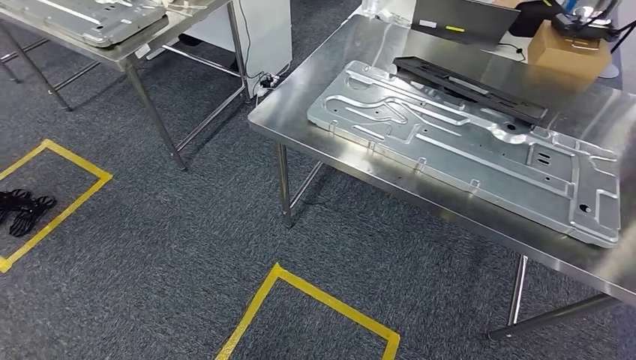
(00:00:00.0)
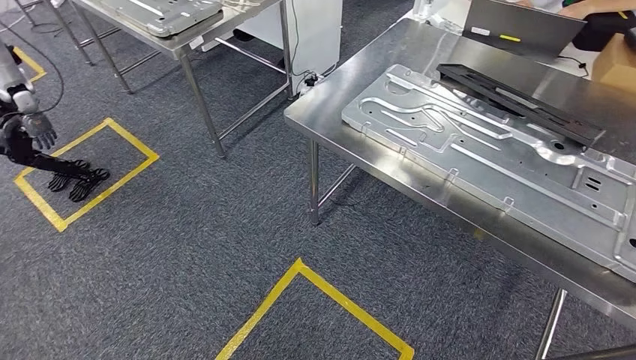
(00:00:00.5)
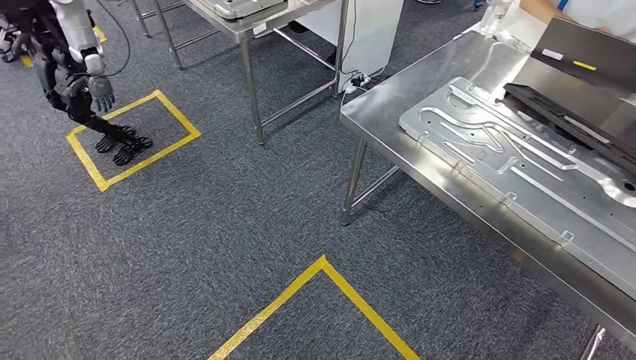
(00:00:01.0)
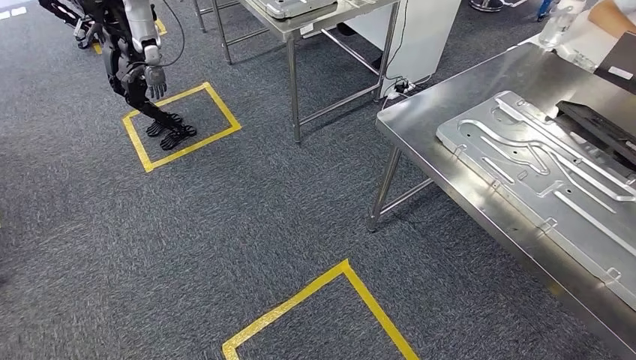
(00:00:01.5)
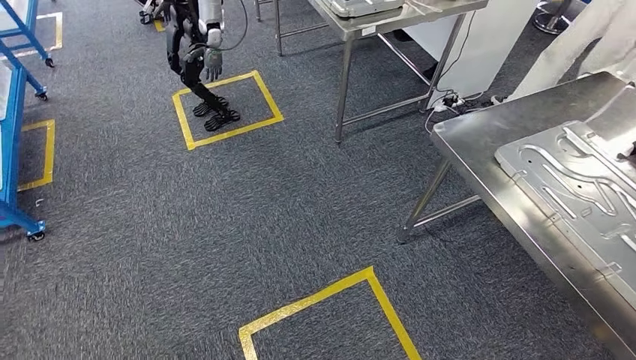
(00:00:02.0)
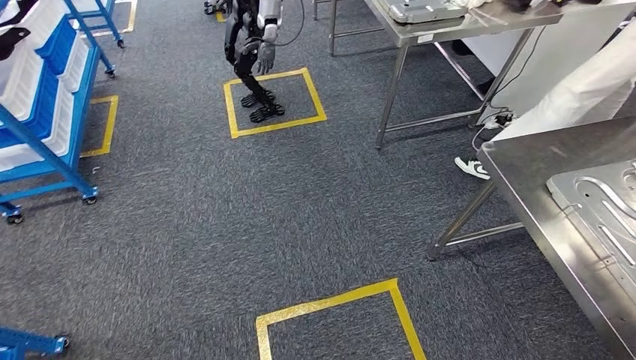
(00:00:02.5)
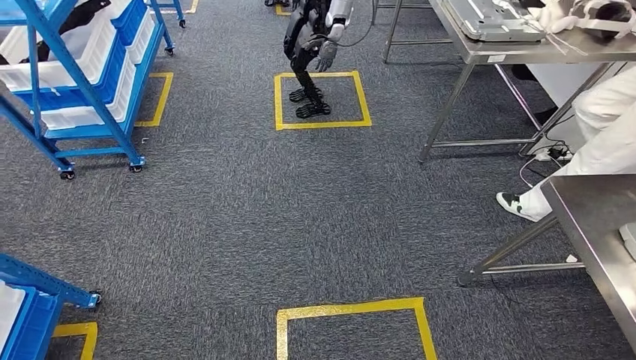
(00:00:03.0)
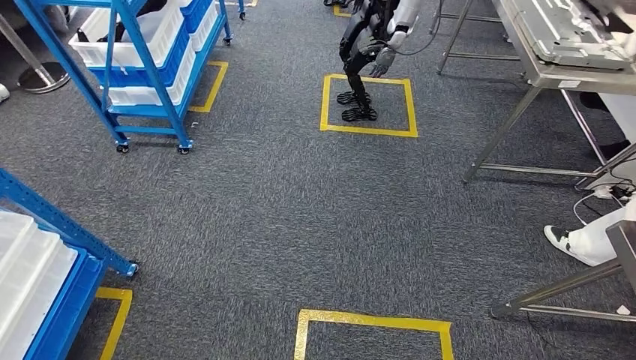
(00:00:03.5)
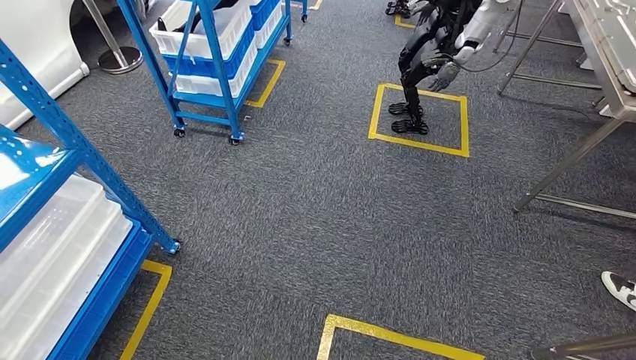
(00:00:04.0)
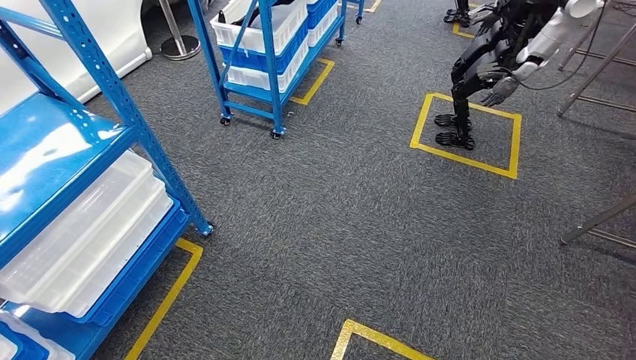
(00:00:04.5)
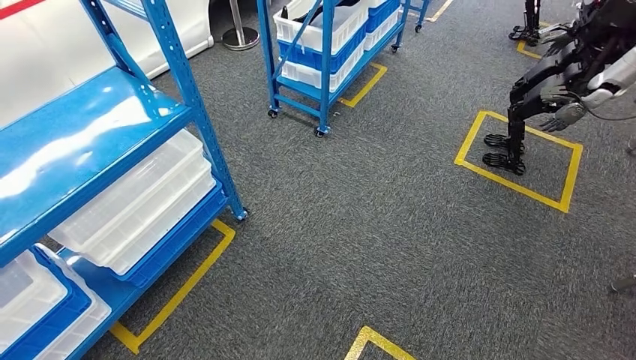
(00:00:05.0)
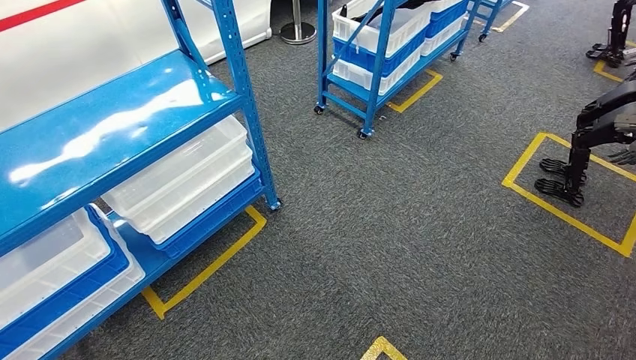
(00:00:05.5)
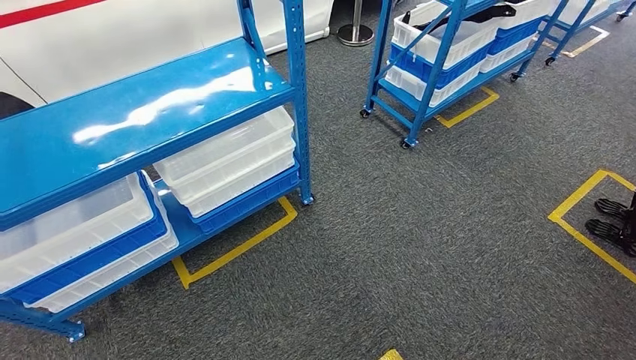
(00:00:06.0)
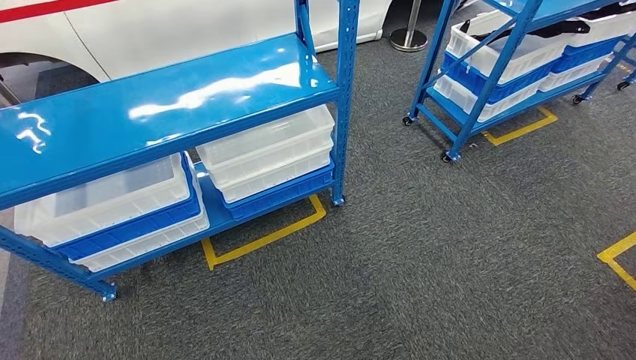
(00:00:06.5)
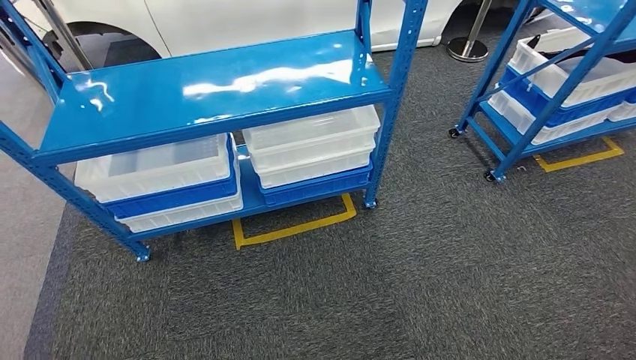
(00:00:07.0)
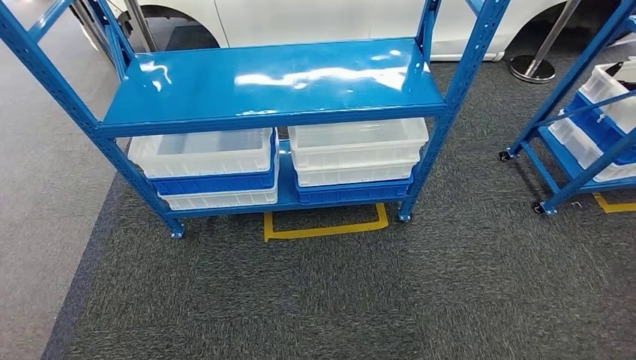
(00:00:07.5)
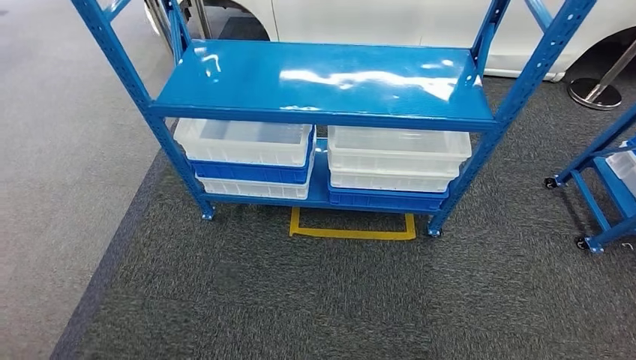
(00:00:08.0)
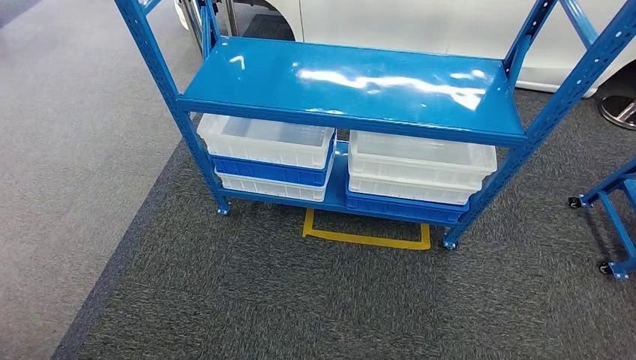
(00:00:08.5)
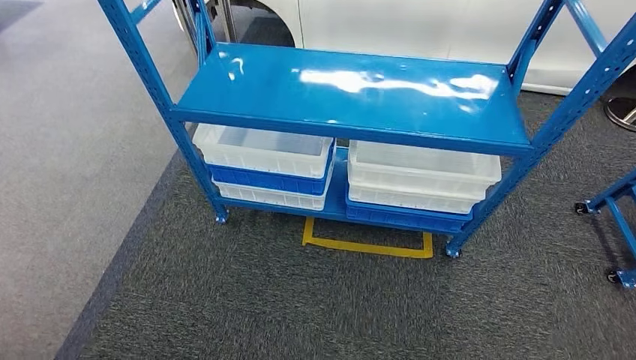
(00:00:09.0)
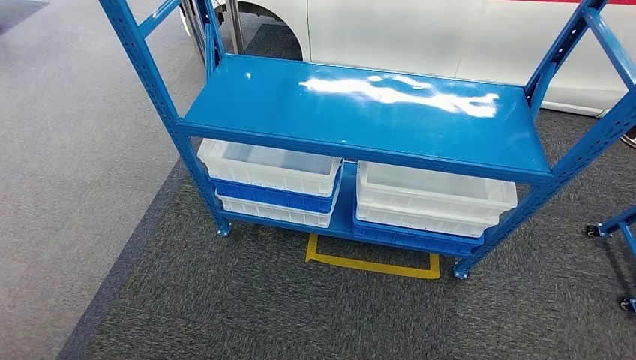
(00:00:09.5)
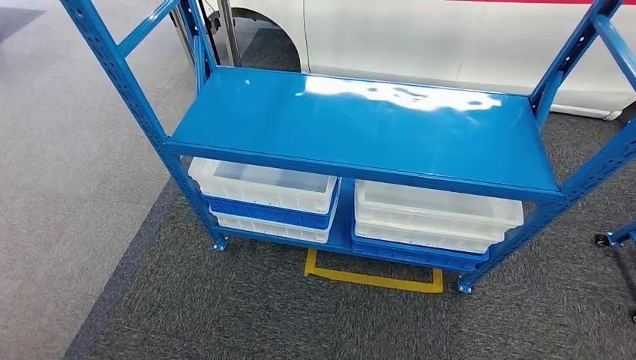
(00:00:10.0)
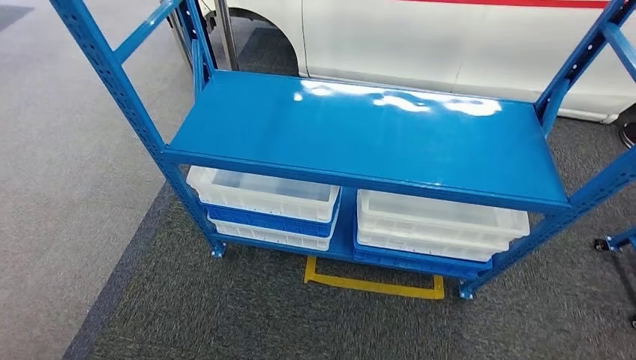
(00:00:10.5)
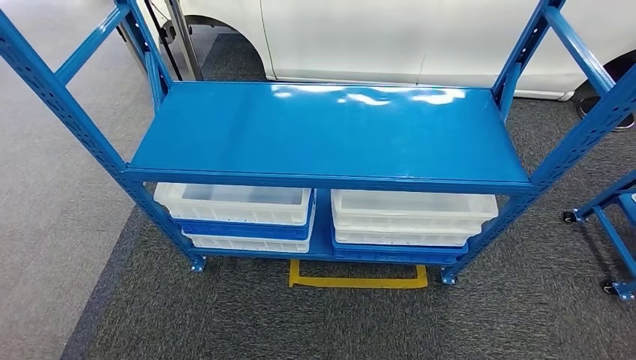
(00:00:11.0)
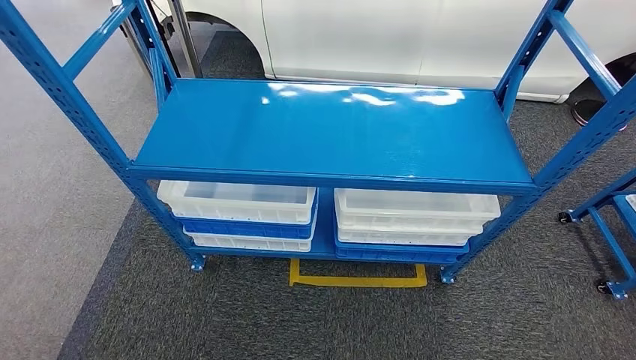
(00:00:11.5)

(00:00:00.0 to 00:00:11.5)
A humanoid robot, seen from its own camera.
Step, 00:00:00.0 - 00:00:08.5: Move to the initial position of the shelf.
